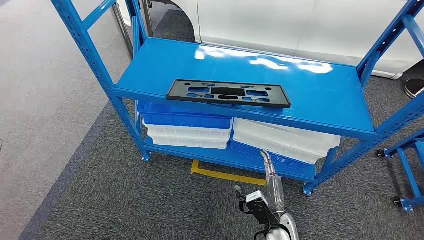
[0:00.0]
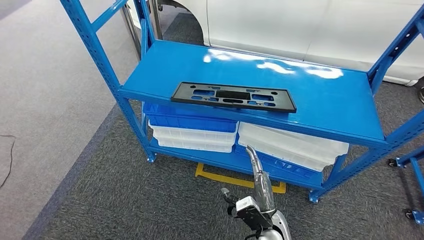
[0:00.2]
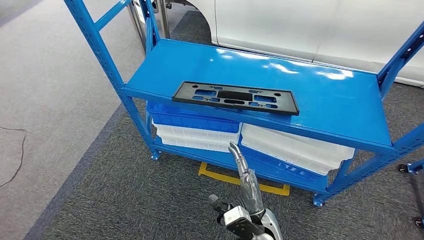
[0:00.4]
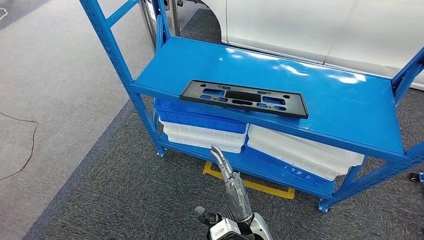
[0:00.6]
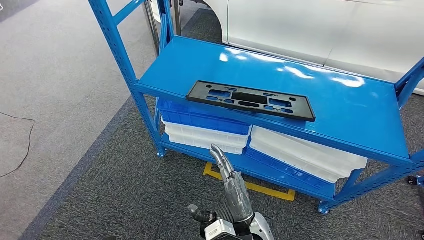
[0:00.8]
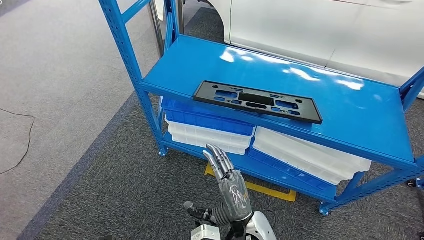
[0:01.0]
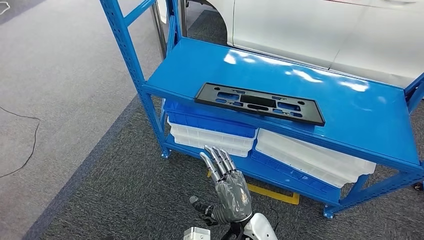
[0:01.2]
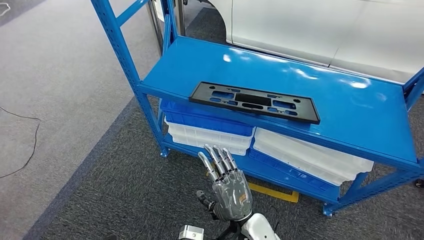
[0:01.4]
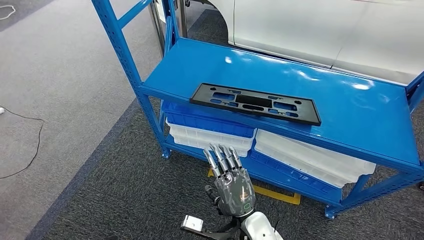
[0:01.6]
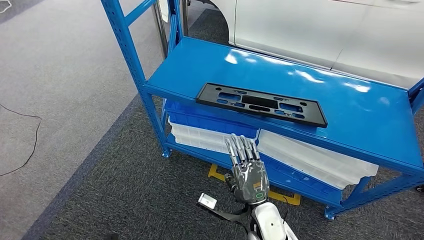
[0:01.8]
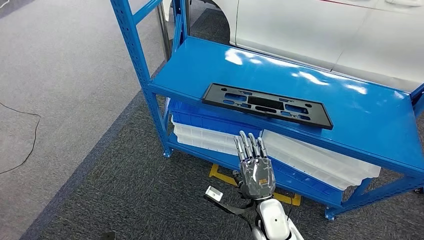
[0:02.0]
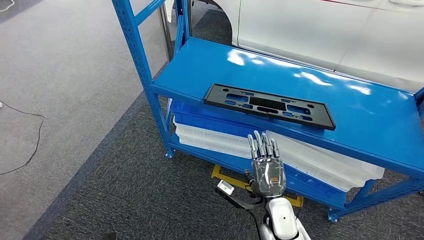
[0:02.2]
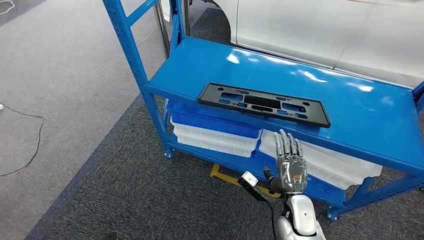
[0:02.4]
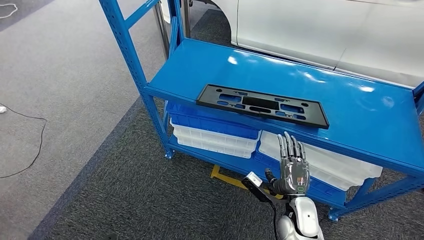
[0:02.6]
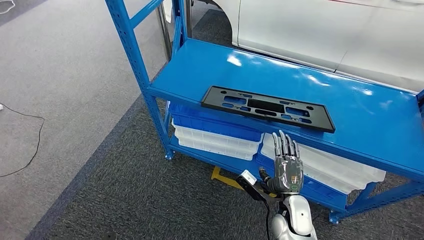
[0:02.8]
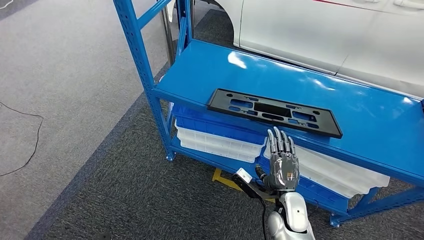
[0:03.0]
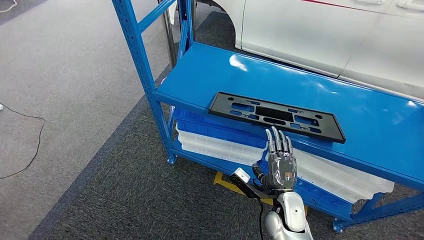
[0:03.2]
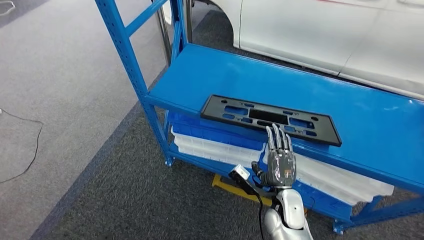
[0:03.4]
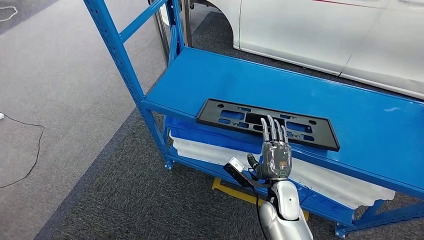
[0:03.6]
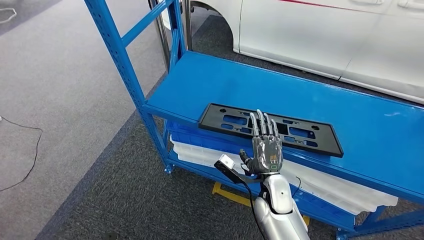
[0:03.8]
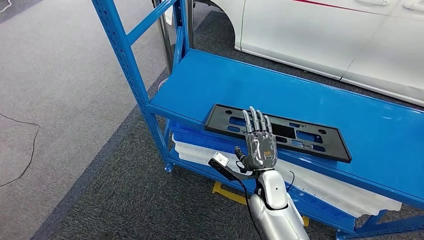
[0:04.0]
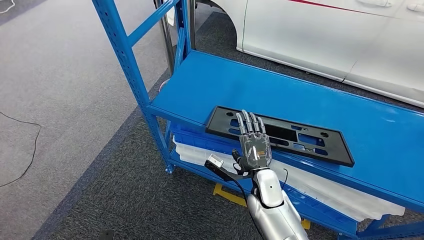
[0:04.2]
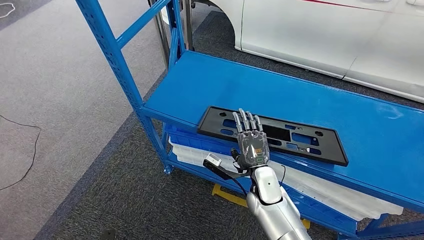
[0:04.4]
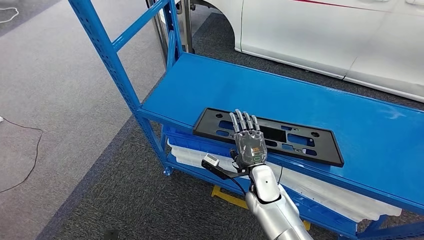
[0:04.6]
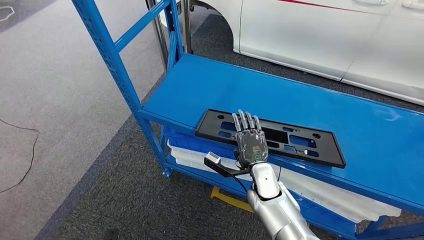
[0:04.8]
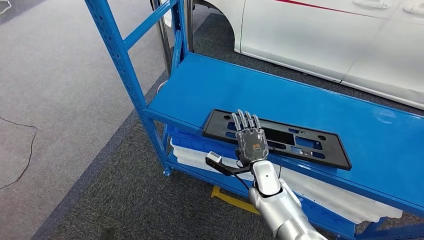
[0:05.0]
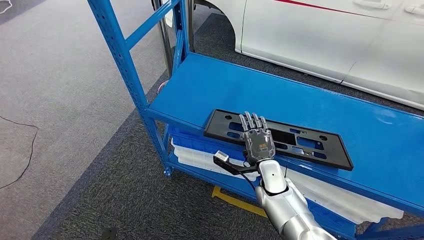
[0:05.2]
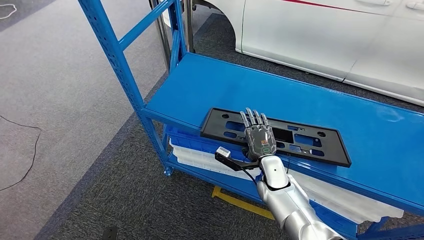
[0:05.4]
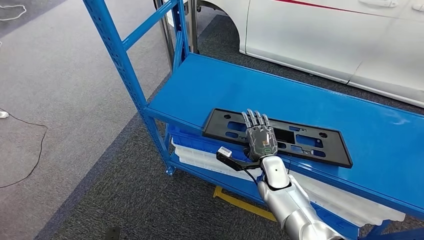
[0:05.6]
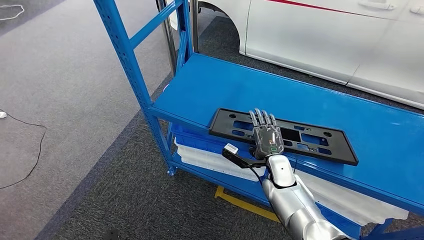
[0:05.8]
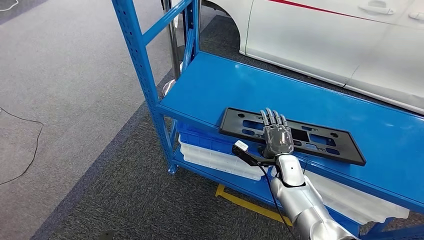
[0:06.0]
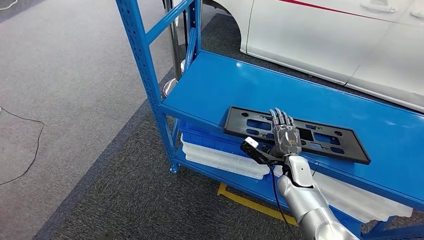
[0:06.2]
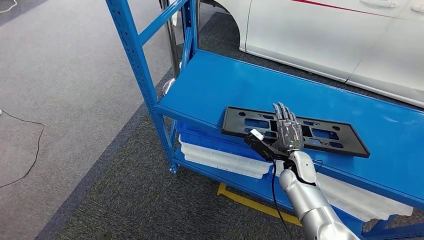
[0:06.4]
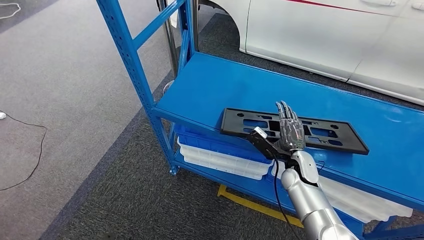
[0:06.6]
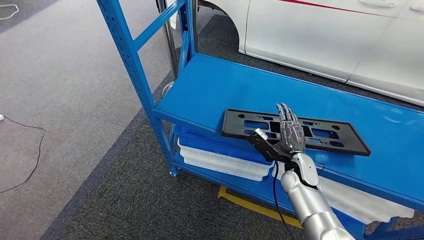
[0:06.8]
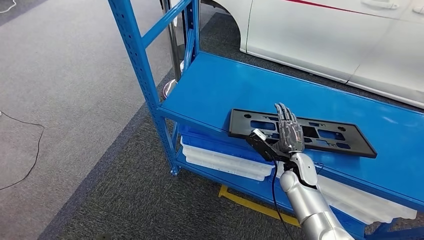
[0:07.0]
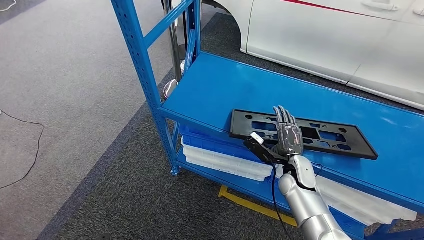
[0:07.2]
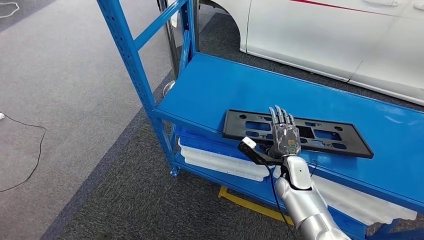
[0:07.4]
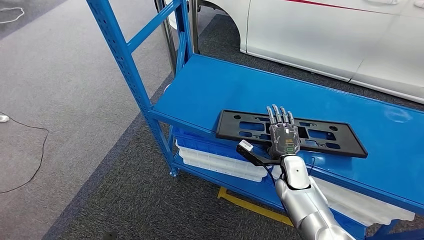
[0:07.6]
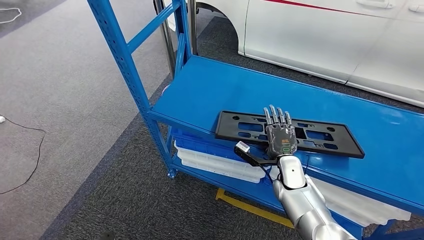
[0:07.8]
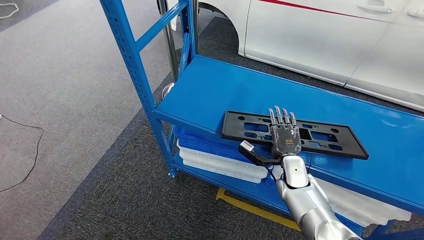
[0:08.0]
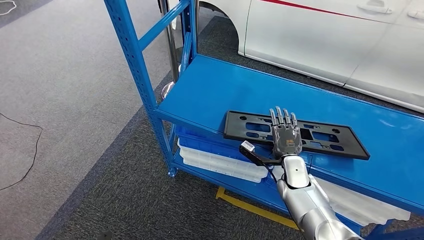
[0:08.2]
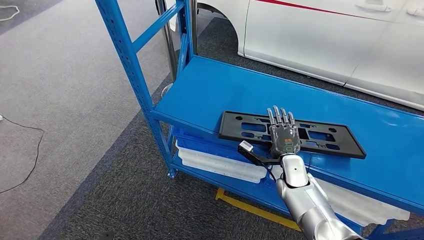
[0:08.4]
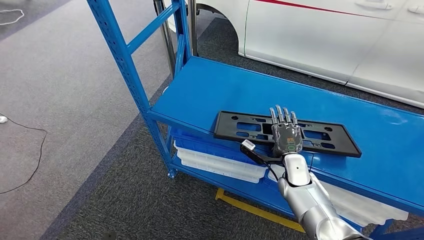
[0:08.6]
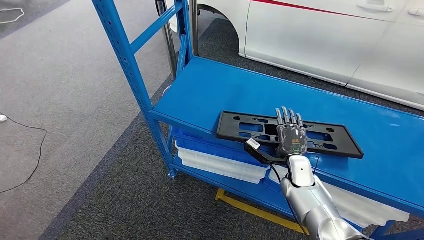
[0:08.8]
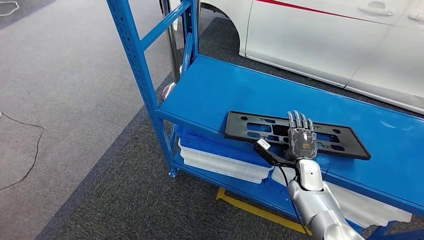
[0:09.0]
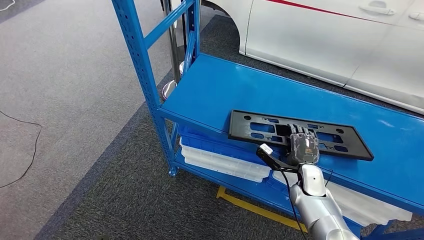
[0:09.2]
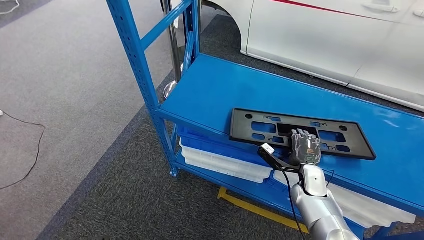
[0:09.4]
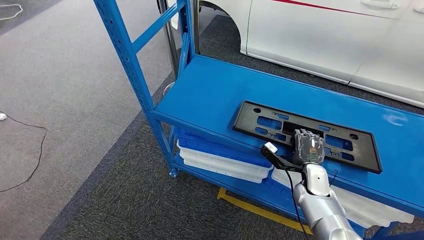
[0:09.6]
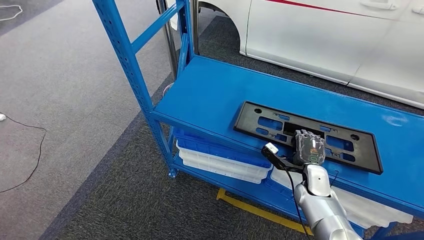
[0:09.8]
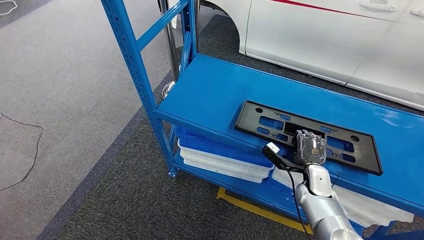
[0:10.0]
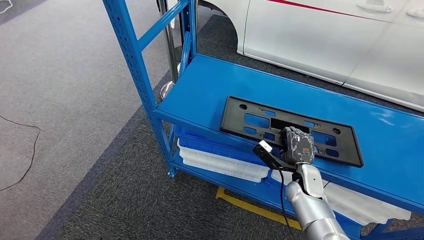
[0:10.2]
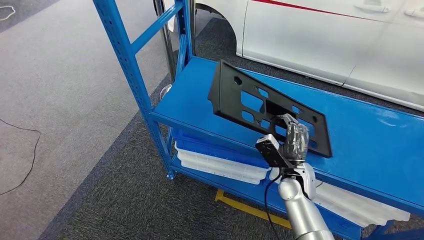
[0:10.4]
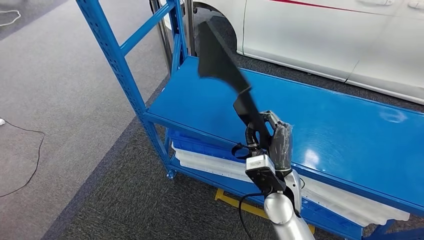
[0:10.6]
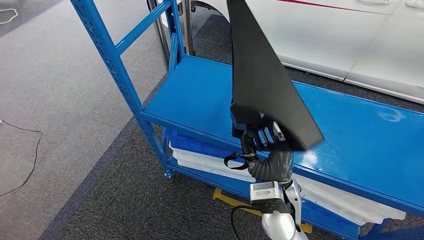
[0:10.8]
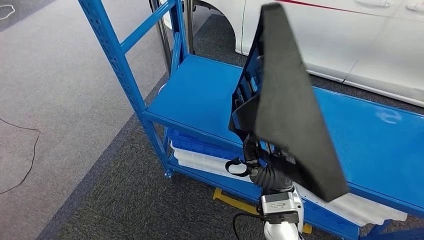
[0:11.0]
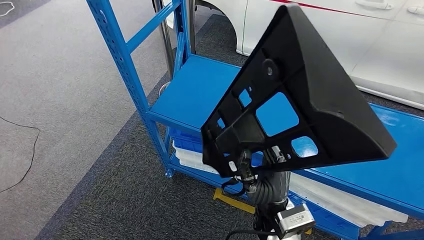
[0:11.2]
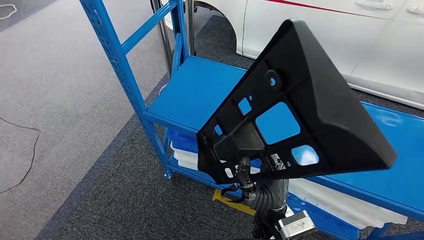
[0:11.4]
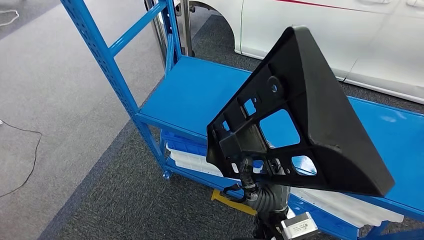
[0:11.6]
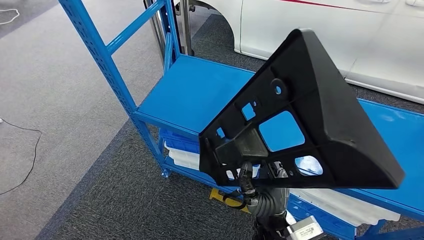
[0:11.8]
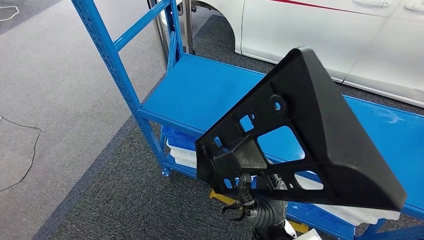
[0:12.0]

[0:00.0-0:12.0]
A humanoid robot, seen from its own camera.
Step, 0:00.0 to 0:11.4: Pick up the large material from the shelf.
0:09.0 to 0:10.4: The right hand moves to the left, some 5 cm.

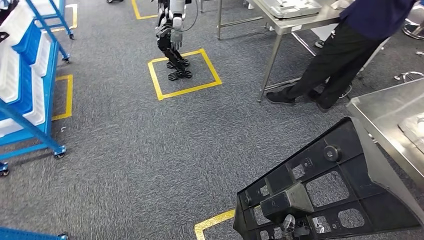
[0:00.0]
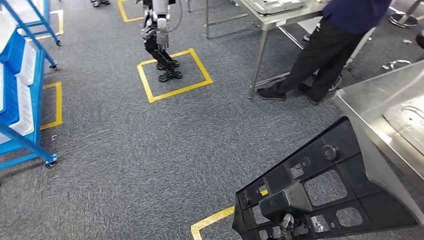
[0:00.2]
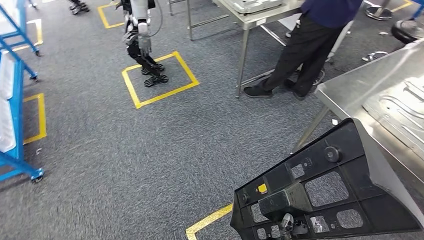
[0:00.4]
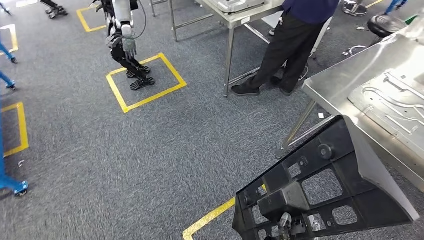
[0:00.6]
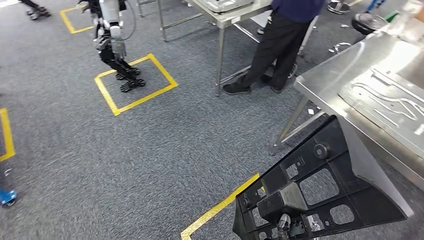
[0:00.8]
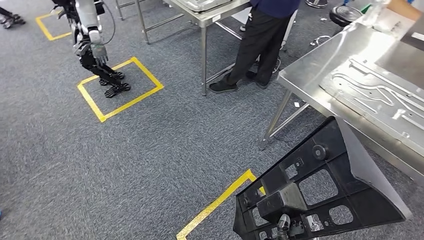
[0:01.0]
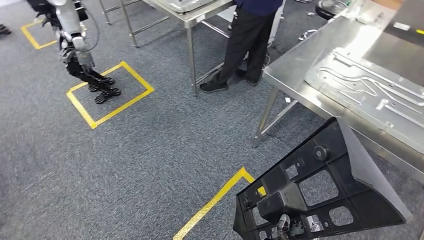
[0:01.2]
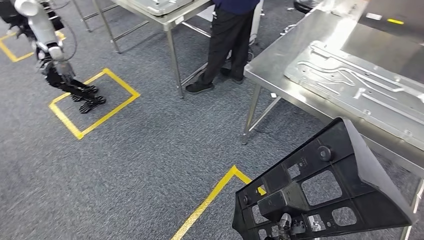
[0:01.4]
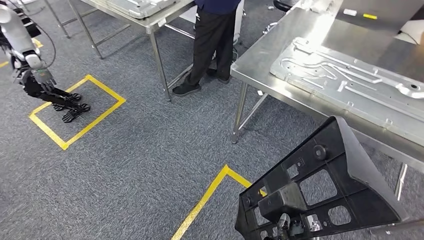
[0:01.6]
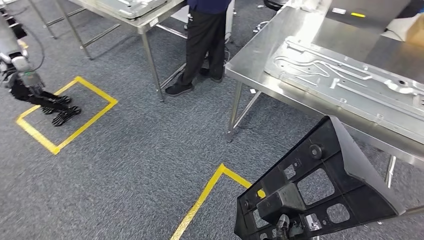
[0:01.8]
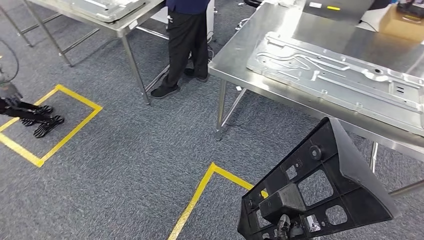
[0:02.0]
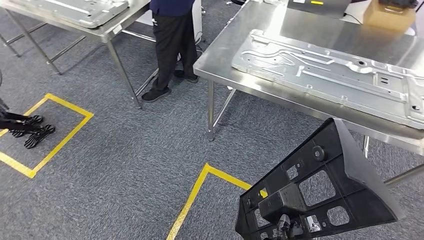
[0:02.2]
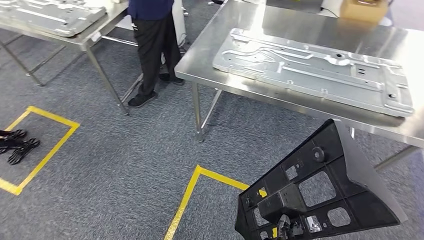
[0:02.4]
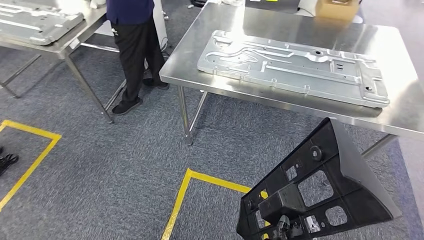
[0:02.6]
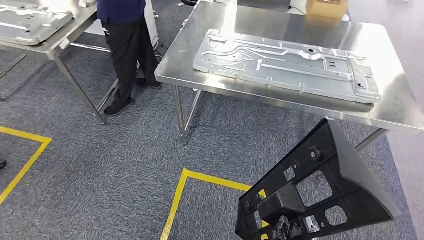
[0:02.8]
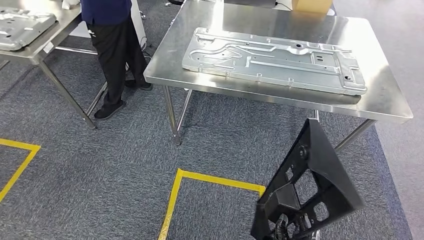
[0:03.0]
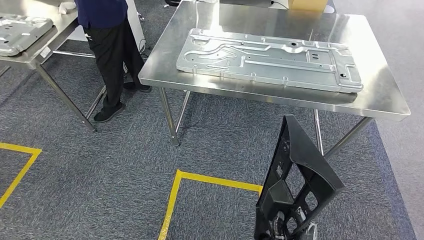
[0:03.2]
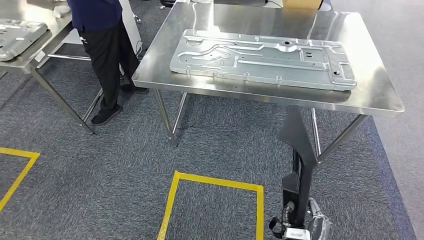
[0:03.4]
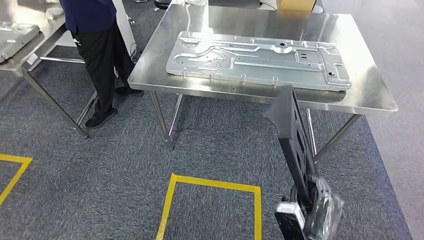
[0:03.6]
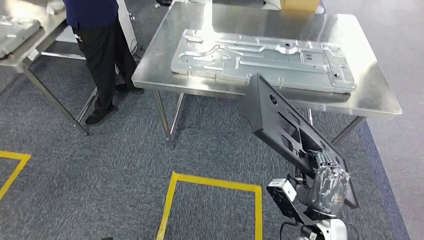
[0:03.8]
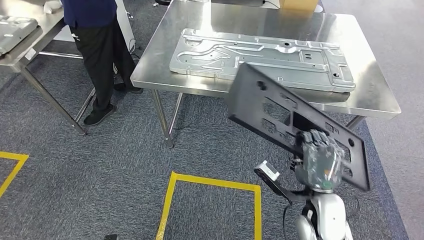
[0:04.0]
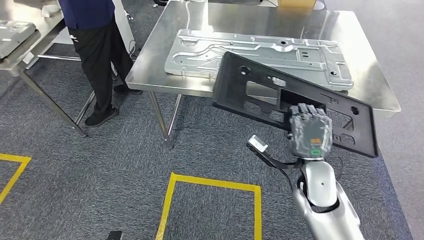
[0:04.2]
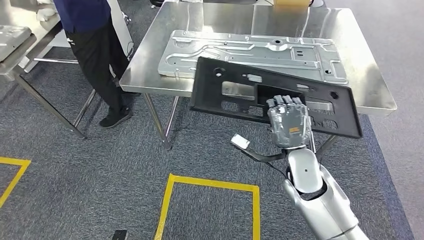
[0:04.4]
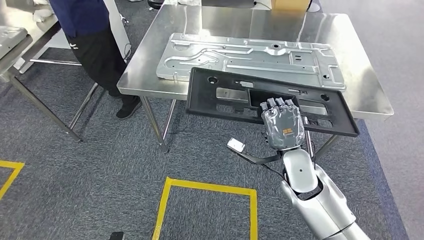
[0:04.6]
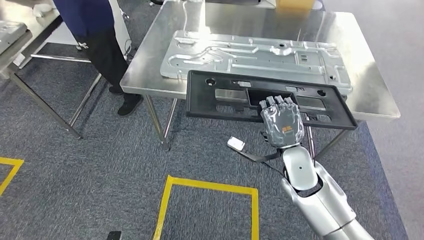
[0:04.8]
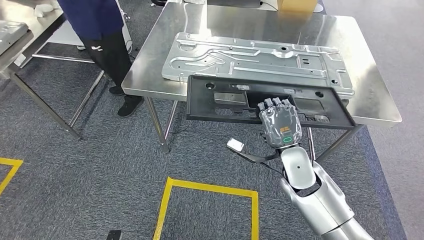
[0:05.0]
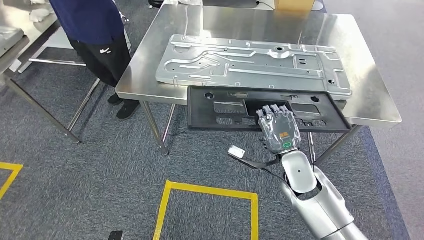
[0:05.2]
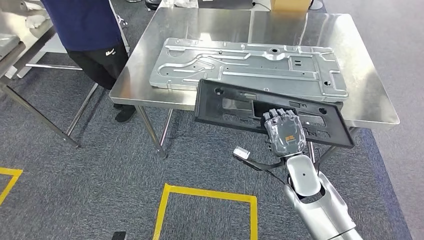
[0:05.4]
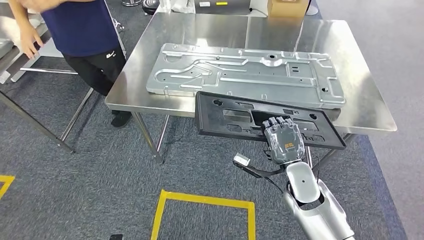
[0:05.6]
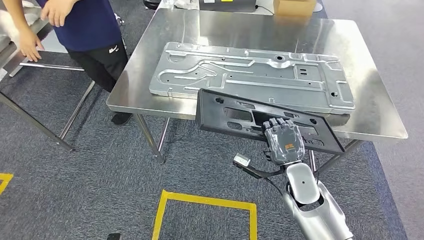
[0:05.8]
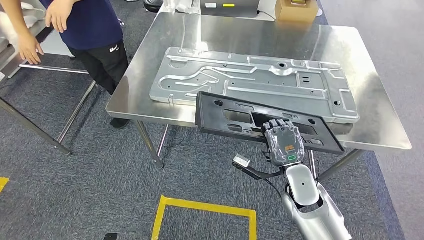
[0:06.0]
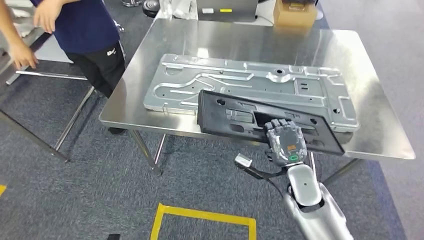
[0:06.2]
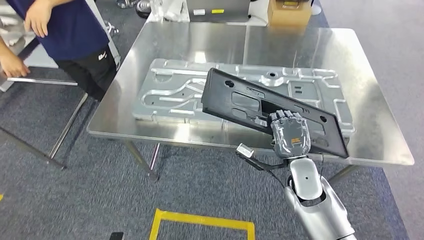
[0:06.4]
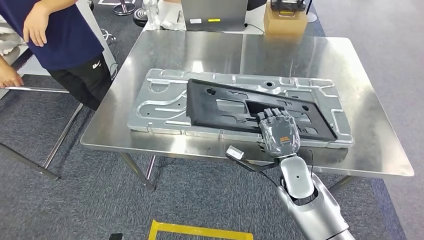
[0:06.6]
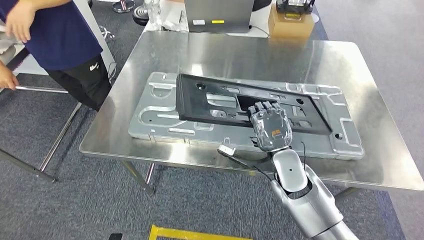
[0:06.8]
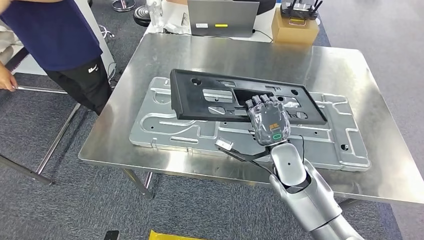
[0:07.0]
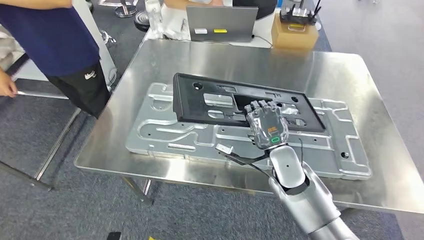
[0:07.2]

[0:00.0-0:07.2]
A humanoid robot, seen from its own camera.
Step, 0:00.0 to 0:05.8: Move the large material to the workbench.
